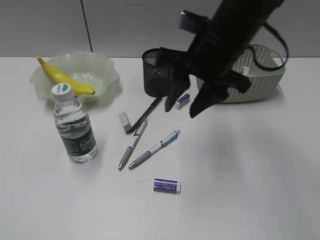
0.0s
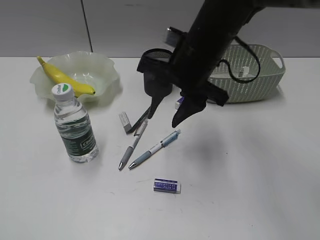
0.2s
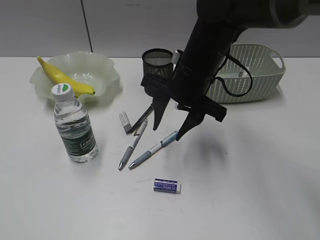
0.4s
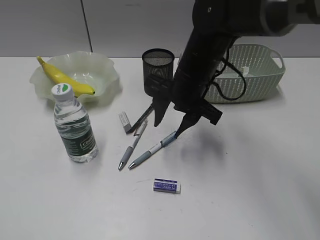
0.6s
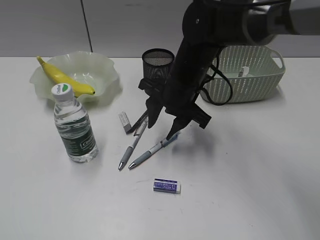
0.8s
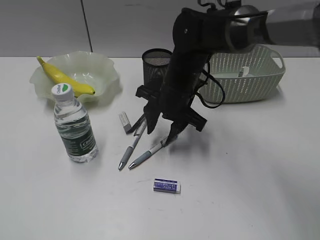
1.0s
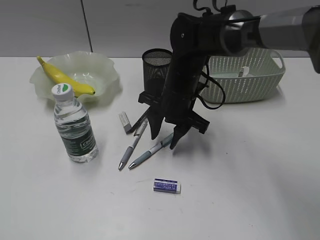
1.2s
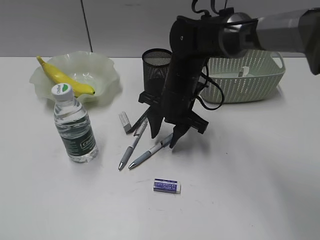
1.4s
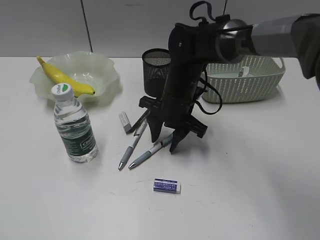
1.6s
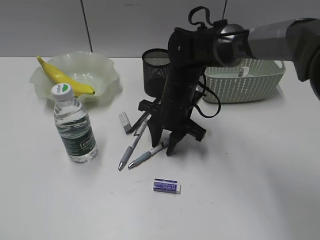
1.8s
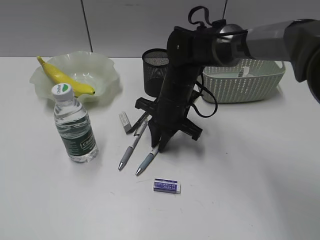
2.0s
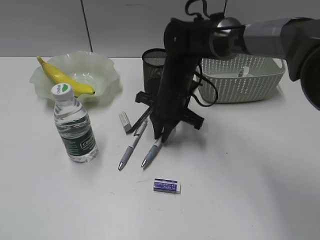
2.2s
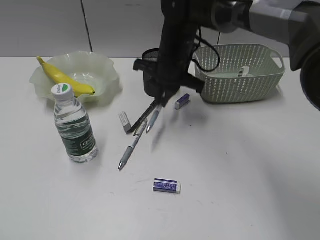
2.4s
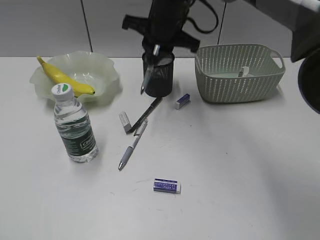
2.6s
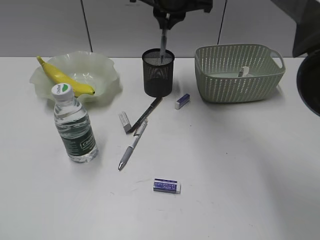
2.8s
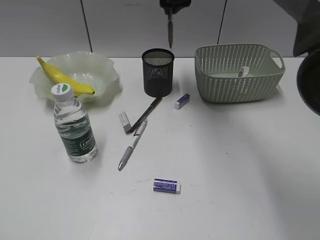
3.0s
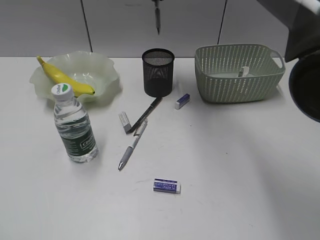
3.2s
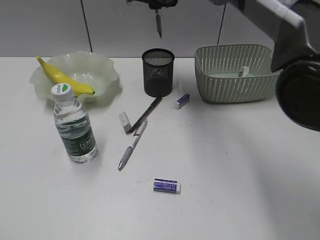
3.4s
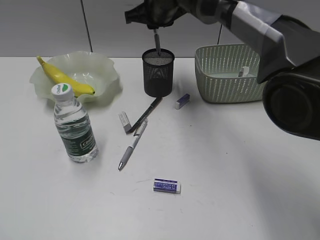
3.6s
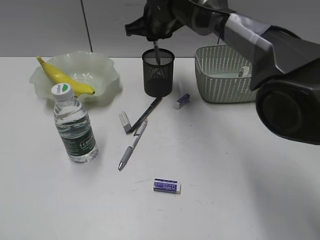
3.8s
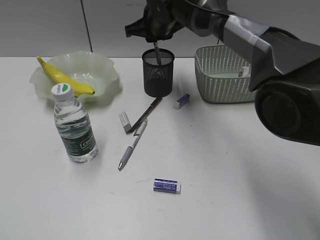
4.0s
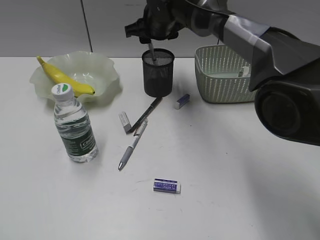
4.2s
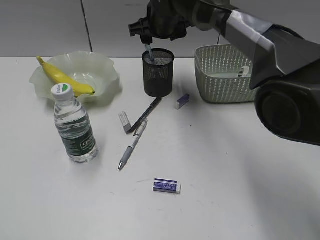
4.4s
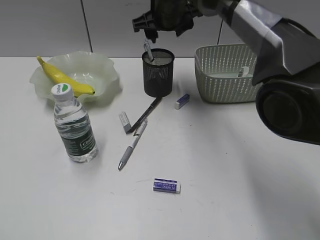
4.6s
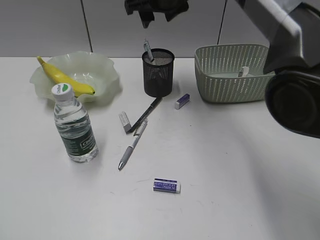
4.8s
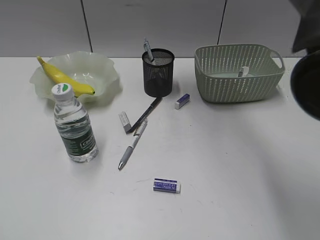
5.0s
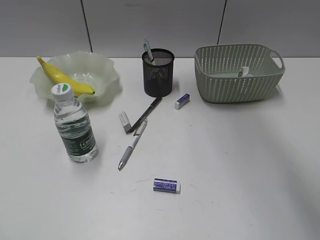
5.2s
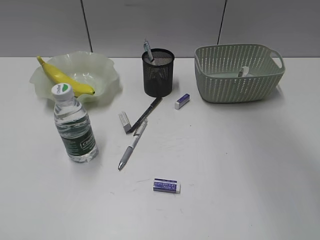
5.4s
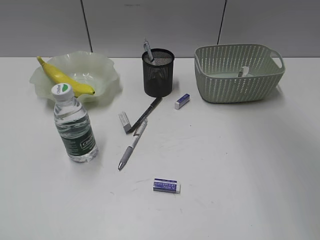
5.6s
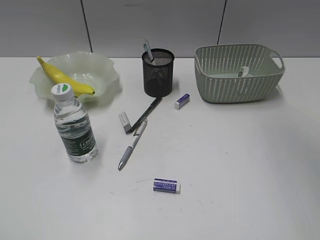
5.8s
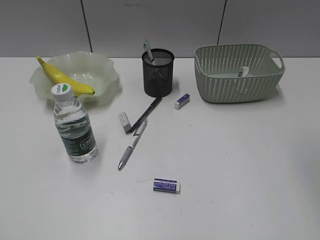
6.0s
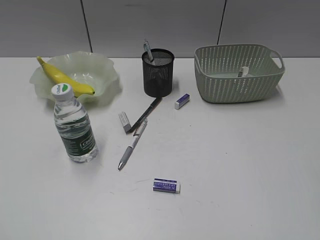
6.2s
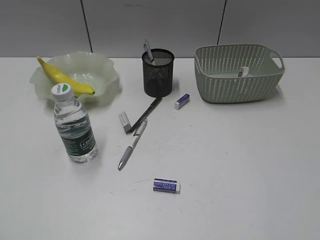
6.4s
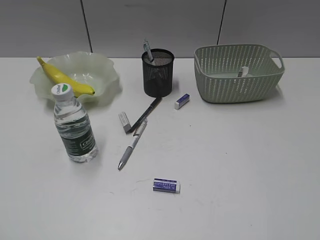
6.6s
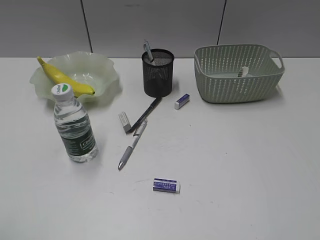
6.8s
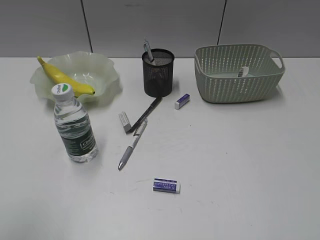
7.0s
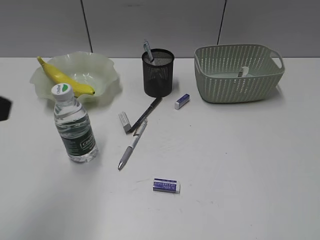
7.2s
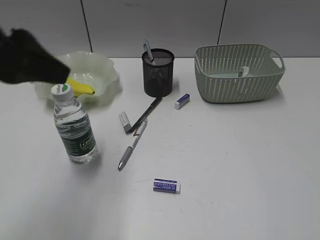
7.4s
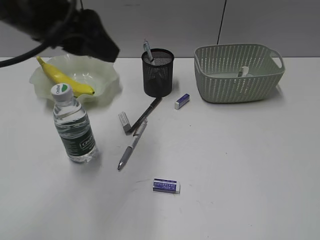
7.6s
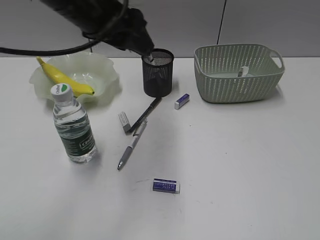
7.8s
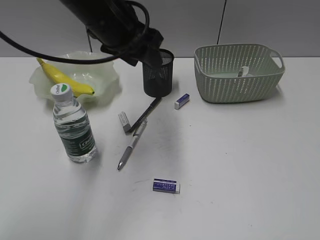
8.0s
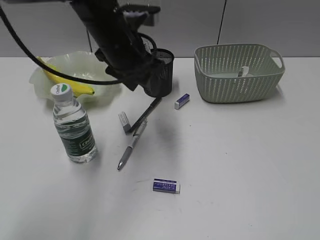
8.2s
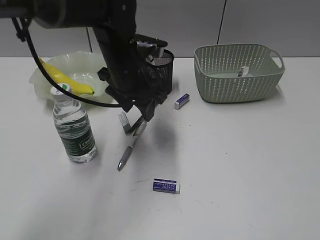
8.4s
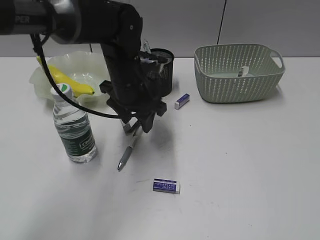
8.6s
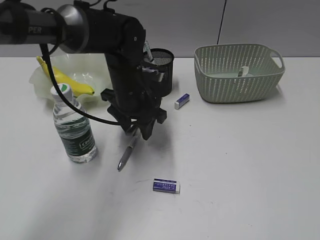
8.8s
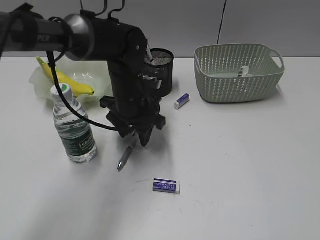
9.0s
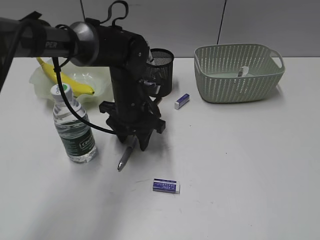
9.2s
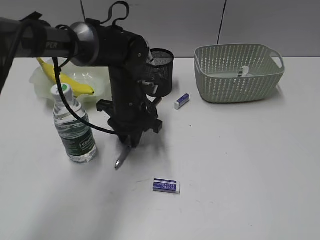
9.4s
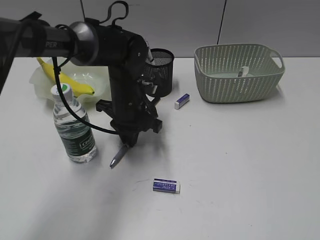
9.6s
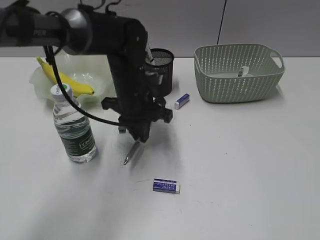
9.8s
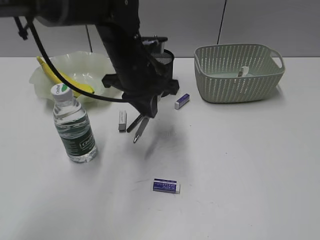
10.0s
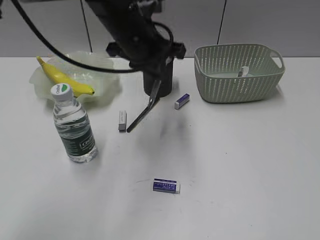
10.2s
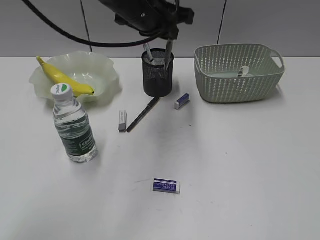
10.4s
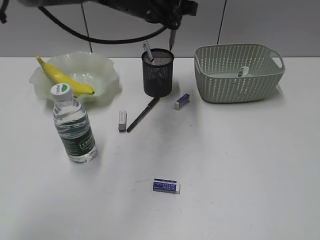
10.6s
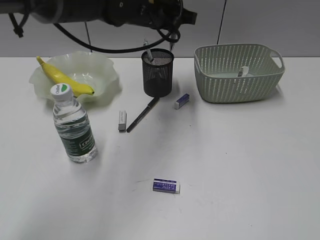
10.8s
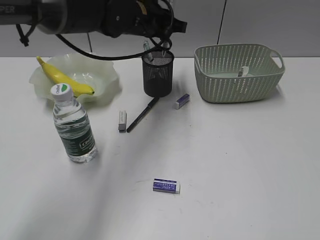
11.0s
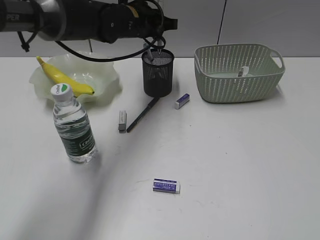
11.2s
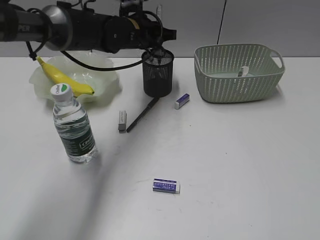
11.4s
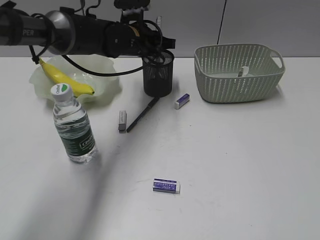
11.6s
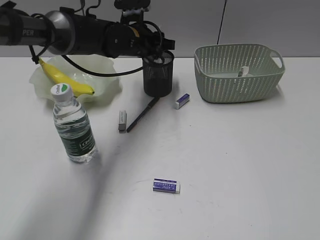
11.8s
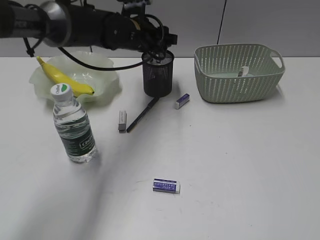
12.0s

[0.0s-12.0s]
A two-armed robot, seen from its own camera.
Step, 0.0s to 2.0s: Grasp the blue pen with right gripper.
Step, 4.4s to 9.4s: Grasp the gray pen with left gripper.
Step, 9.6s to 11.8s: Place the gray pen in pen holder with left gripper.
0.0s to 1.6s: The right gripper goes roughly 15 cm downward.
1.6s to 3.0s: The right gripper heads upward and forward, covering about 20 cm, and closes its fingers.
3.0s to 4.4s: The right gripper travels downward by some 10 cm, and opens.
4.4s to 6.0s: The right gripper shifts about 40 cm backward, to the right and upward.
6.0s to 7.6s: The right gripper goes approximately 25 cm backward, downward and to the right; the left gripper moves forward and to the right, about 30 cm.
7.6s to 9.0s: The left gripper travels downward, forward and to the right by approximately 25 cm.
9.0s to 10.4s: The left gripper travels upward by approximately 15 cm, and closes up.
10.4s to 12.0s: The left gripper goes about 10 cm downward and forward, and opens up.

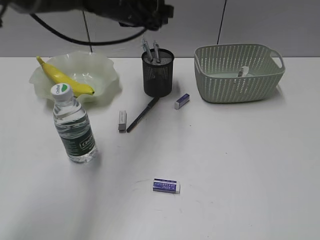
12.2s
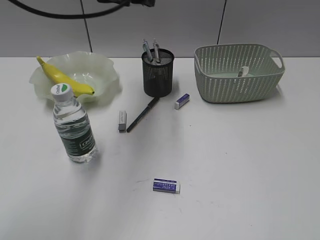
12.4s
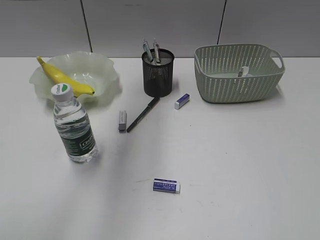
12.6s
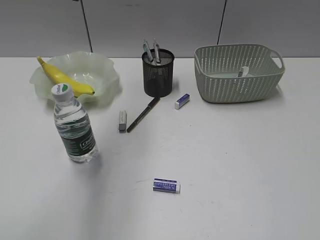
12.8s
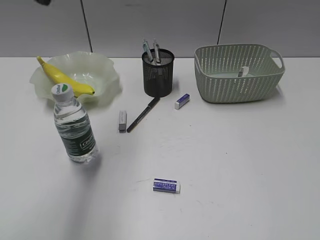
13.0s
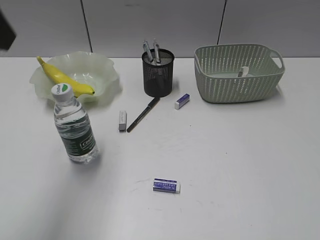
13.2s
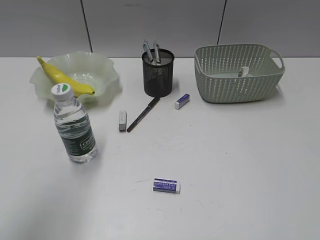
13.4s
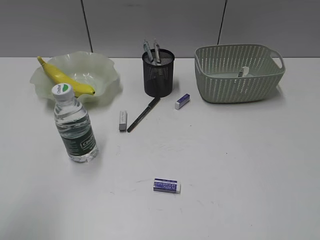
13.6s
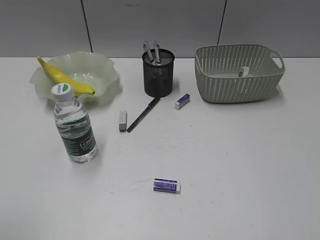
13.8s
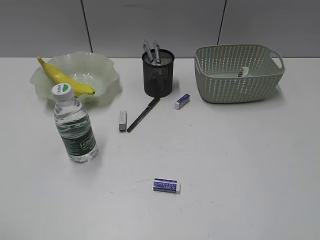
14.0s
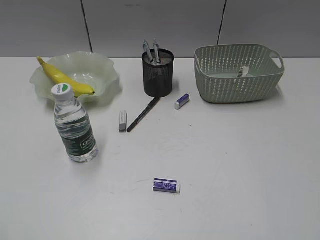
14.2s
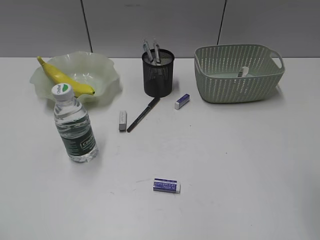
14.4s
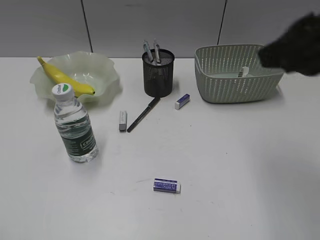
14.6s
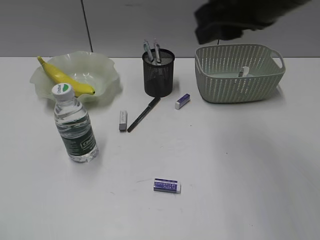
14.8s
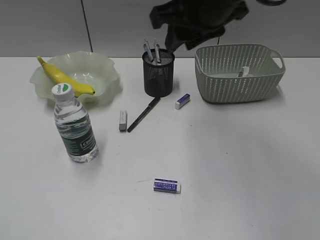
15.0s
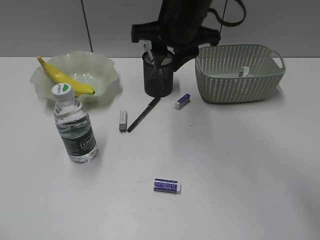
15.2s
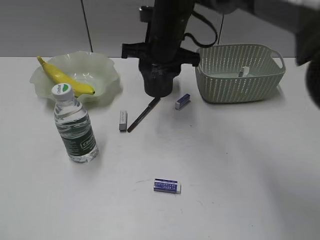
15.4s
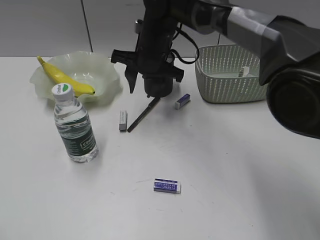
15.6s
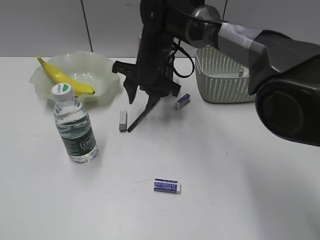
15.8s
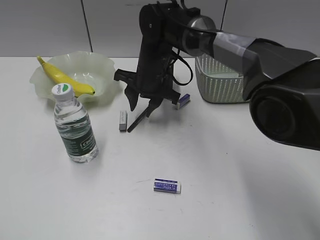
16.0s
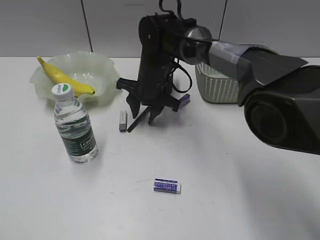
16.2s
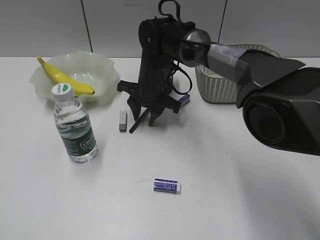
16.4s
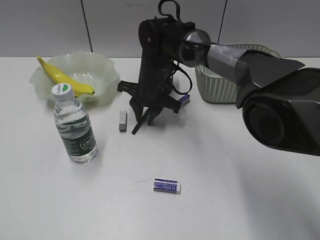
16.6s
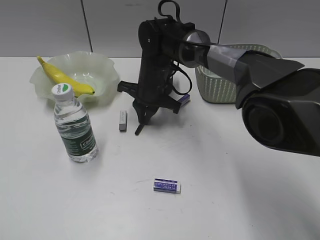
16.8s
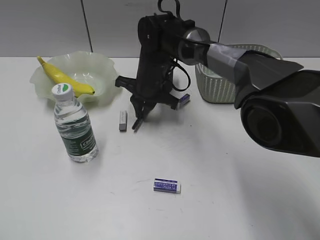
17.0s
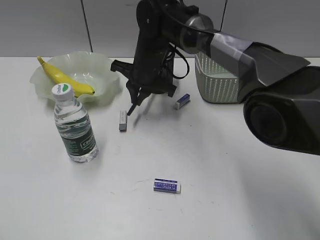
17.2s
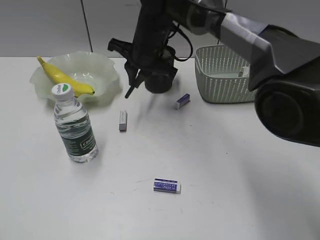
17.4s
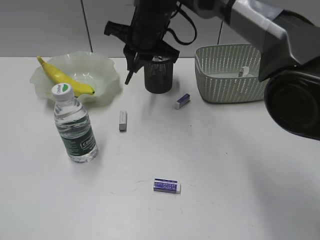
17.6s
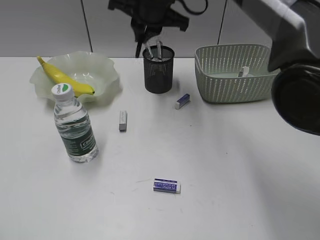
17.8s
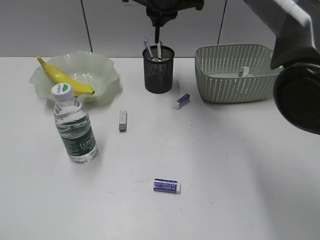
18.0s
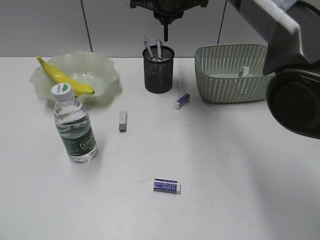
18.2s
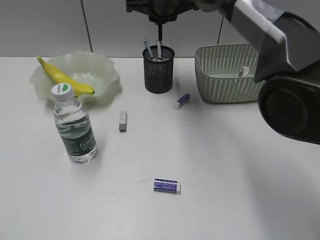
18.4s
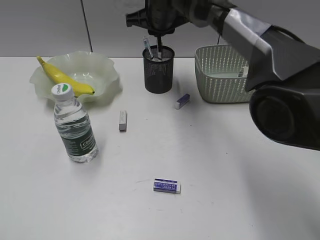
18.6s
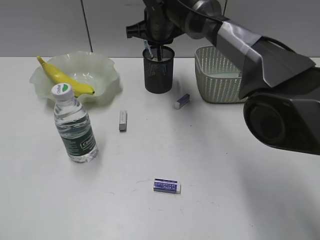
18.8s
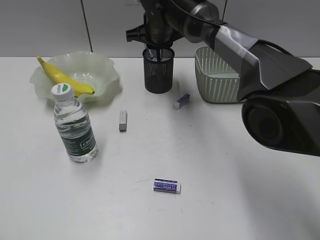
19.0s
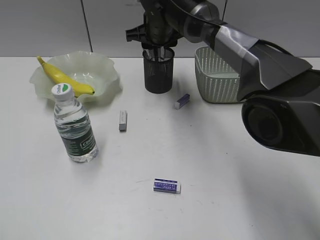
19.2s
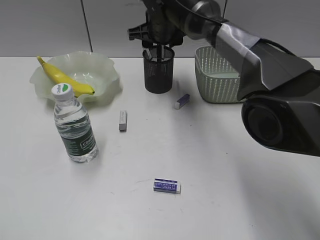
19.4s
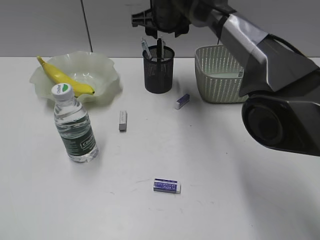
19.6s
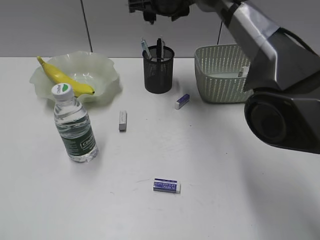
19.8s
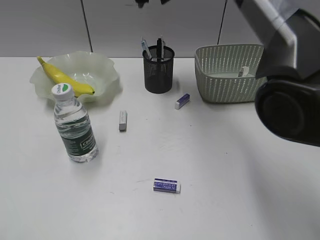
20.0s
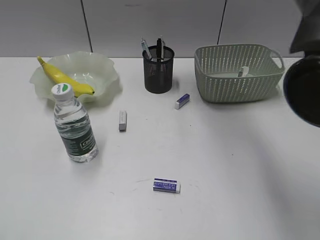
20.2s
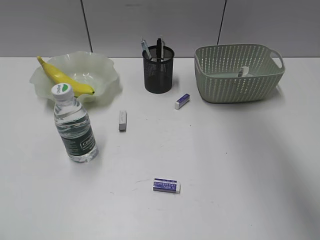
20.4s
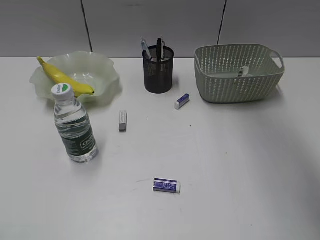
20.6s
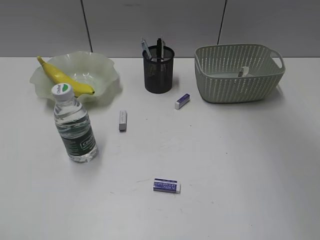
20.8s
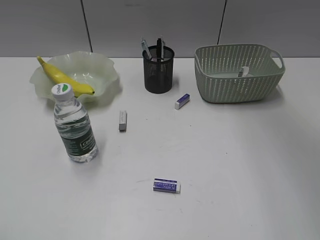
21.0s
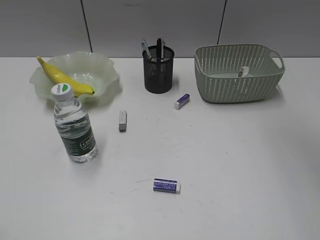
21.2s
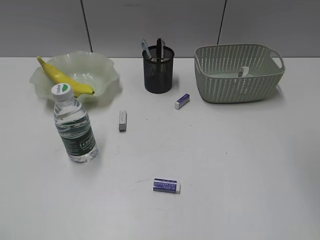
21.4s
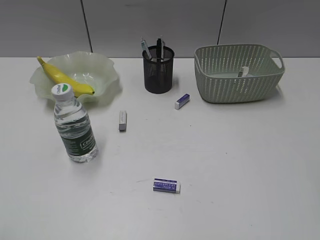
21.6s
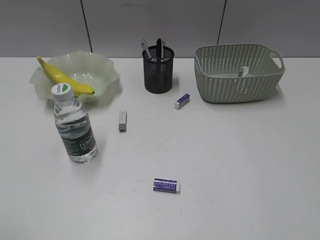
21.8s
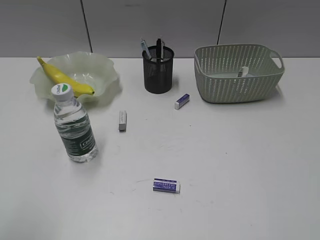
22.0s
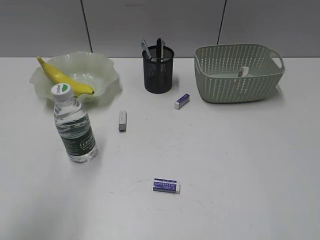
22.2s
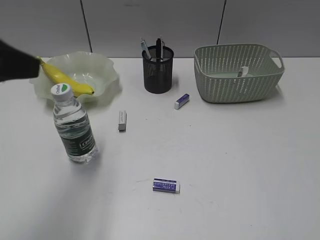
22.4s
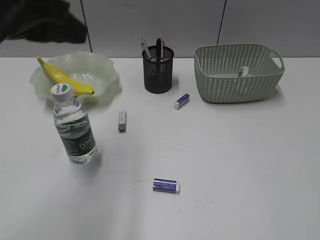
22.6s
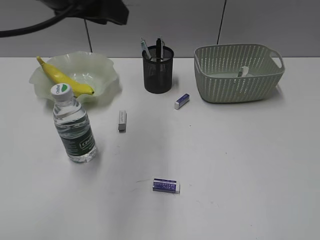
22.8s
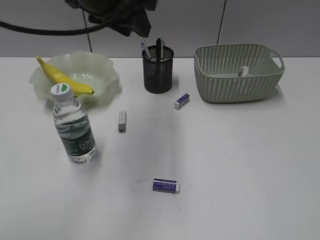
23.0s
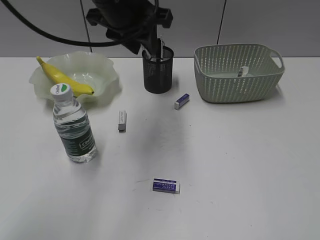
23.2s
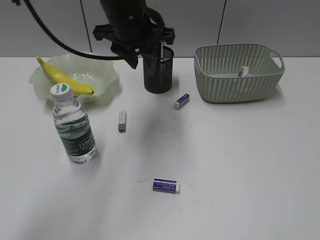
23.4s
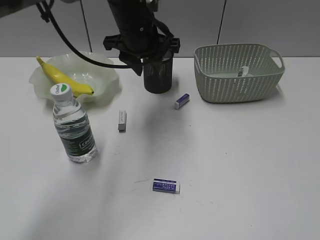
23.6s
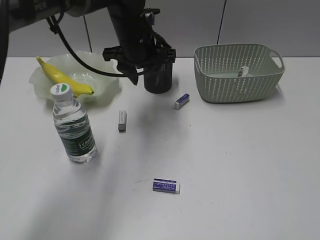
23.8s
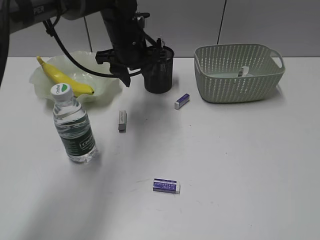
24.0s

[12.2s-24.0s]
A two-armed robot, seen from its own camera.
Step, 12.2s to 16.8s: Grasp the black pen with right gripper.
Step, 17.0s to 19.4s: Place the black pen in pen holder with right gripper.
12.2s to 13.6s: The left gripper is displaced backward and to the left by about 40 cm.
13.6s to 15.2s: The left gripper is displaced backward and to the left by about 10 cm; the right gripper heads forward and to the left, covering some 50 cm.
15.2s to 16.6s: The right gripper is displaced downward by some 15 cm.
16.6s to 18.2s: The right gripper shifts roughly 15 cm upward, and closes up.
18.2s to 19.6s: The right gripper opens its fingers.
19.6s to 21.0s: The right gripper is displaced upward, backward and to the right by about 35 cm.
21.0s to 22.6s: The left gripper goes roughly 30 cm forward and to the right; the right gripper shifts some 40 cm backward, downward and to the right.
22.6s to 24.0s: The left gripper moves forward, downward and to the right, some 30 cm.
